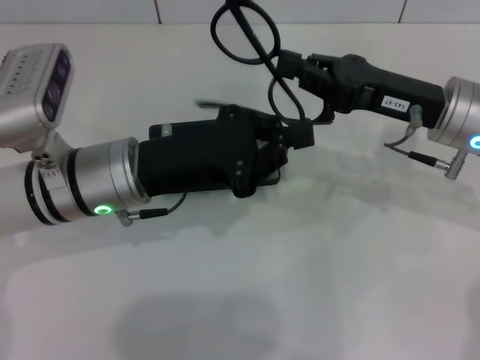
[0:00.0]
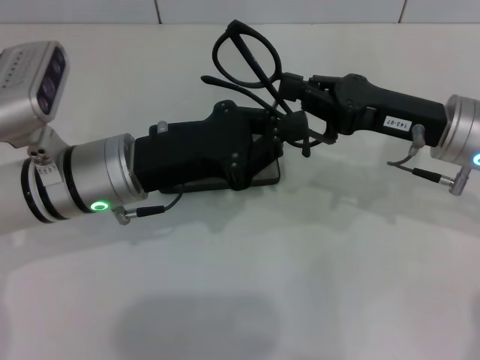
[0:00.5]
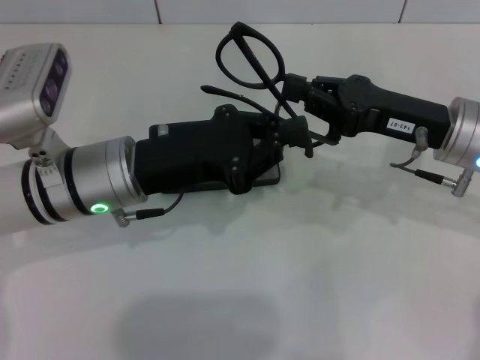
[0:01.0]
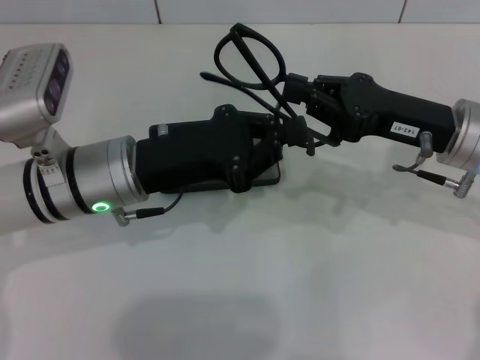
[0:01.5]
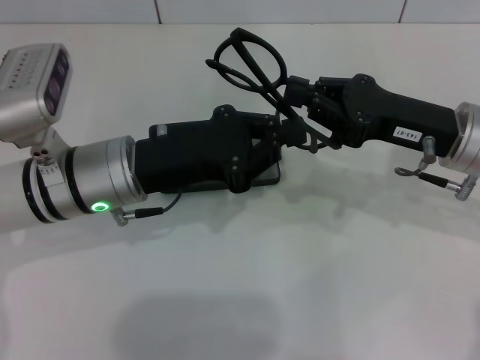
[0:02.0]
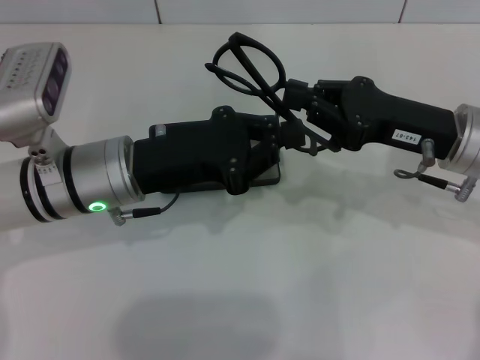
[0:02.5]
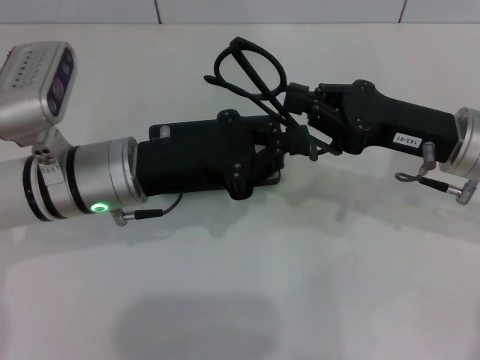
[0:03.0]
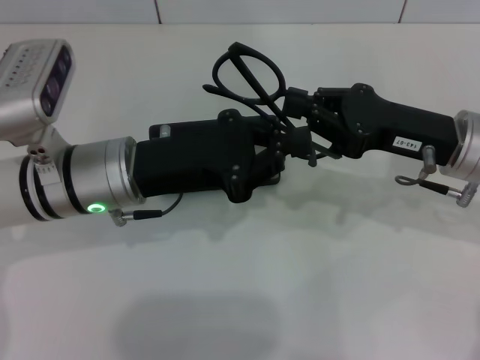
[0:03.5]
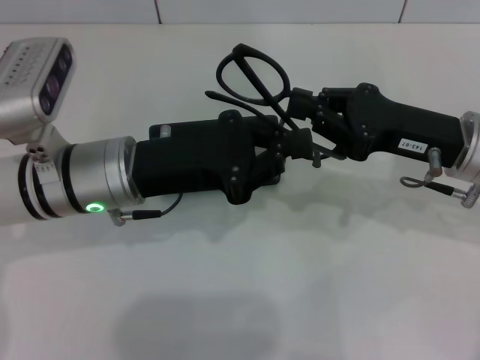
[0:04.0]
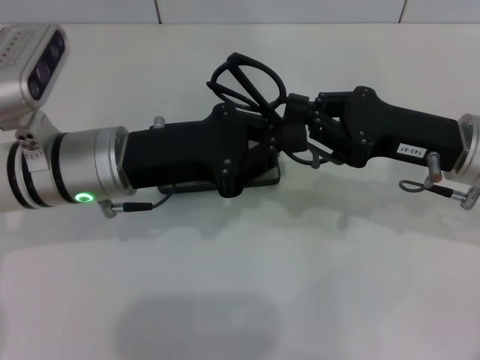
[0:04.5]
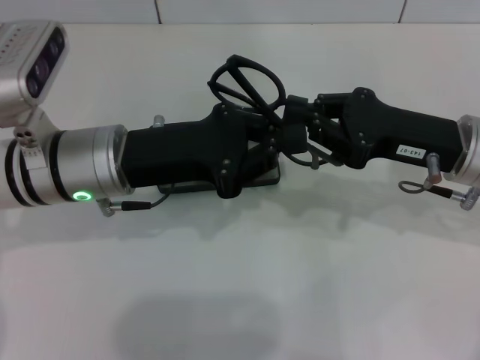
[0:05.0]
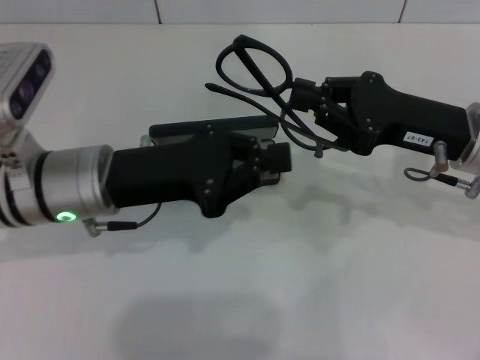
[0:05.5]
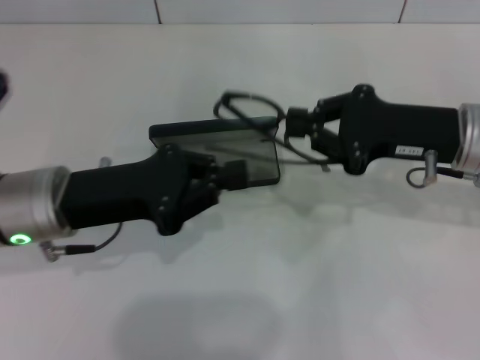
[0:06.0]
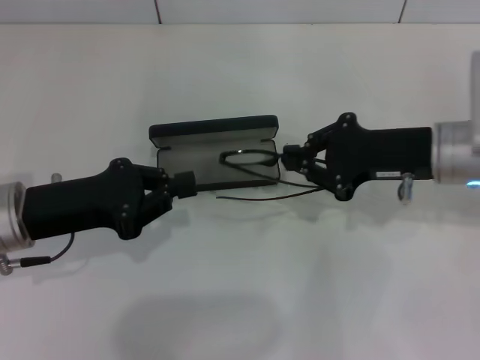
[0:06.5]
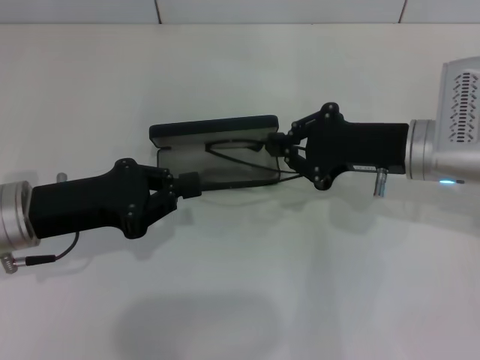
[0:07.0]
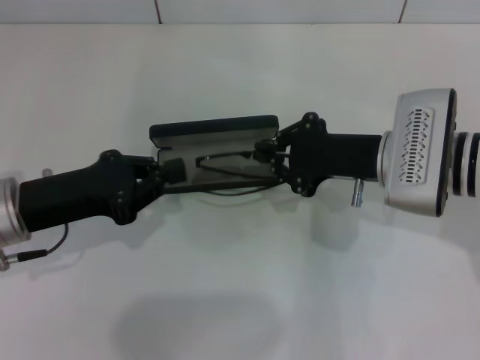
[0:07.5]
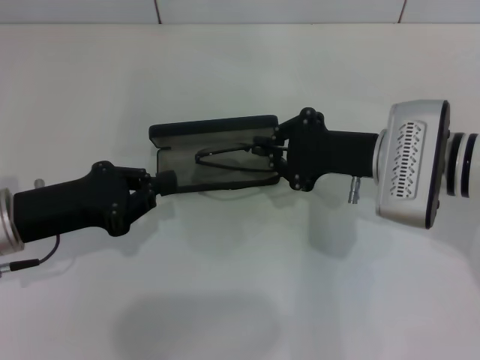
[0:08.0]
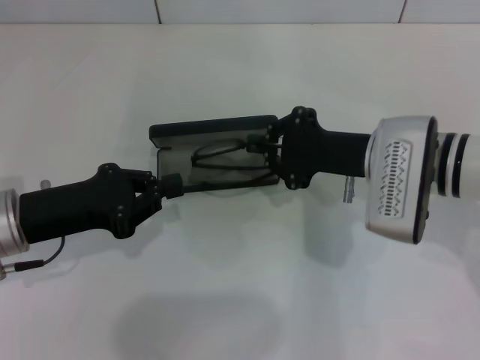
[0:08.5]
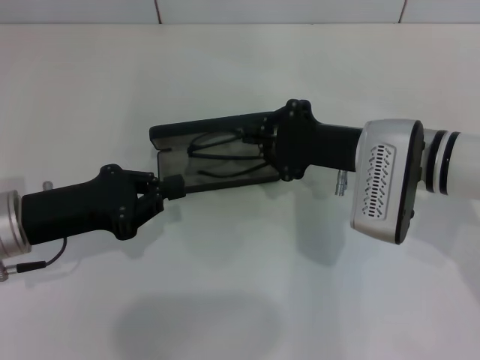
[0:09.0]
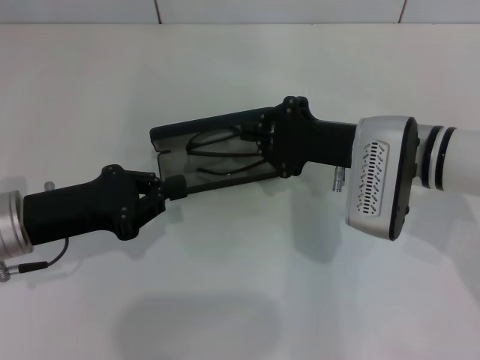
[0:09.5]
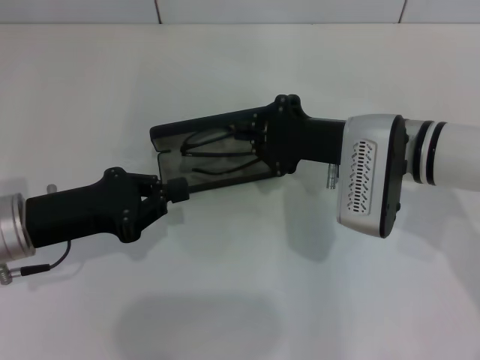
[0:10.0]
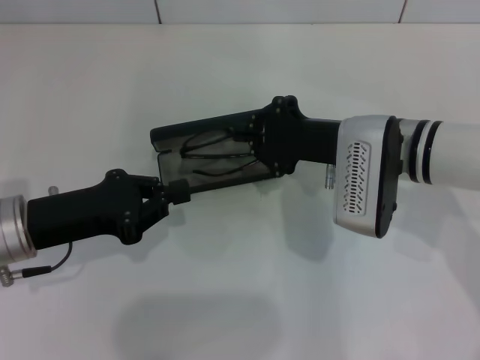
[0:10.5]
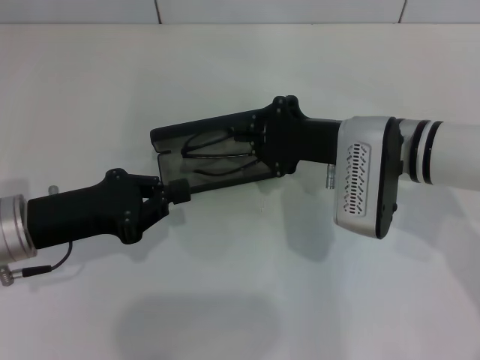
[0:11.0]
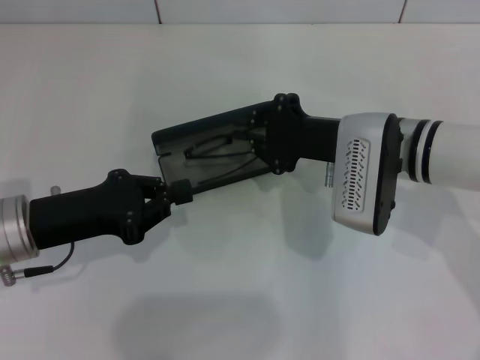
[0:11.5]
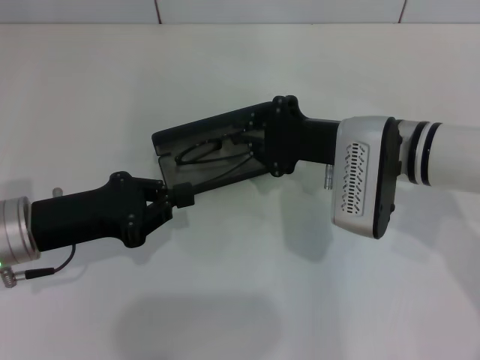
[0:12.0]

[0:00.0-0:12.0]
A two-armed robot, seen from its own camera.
Step, 0:00.0 to 0:05.5: Fold the frame with your left hand.
0:00.0 to 0:02.0: The grippers stay close to where they were, moving slightly.
0:02.0 to 0:04.0: The two grippers keep their place.
0:04.0 to 0:06.0: The left gripper moves to the left, some 5 cm.
0:06.0 to 0:08.0: Both grippers travel together to the left, about 5 cm.
0:08.0 to 0:10.0: The grippers stay close to where they were, moving slightly.
0:10.0 to 0:12.0: Both grippers stay put.

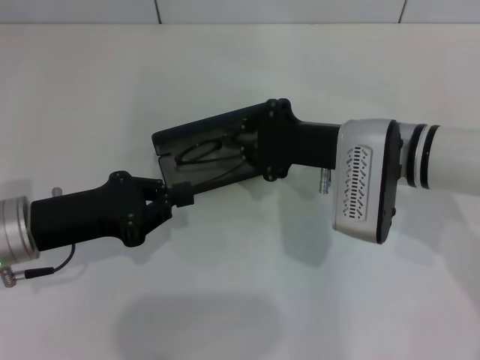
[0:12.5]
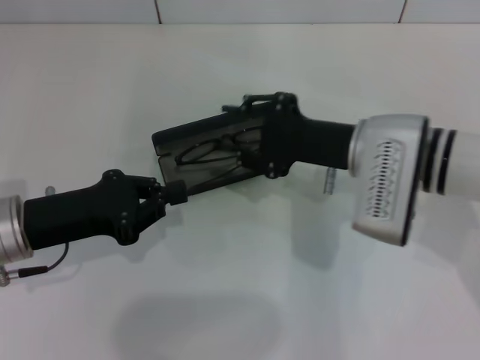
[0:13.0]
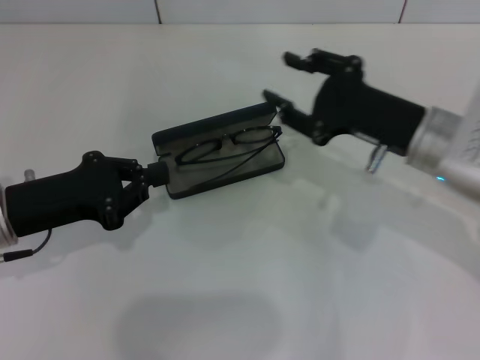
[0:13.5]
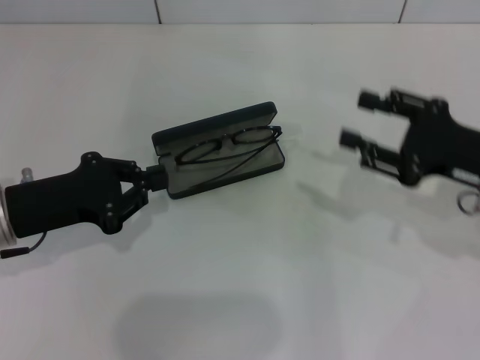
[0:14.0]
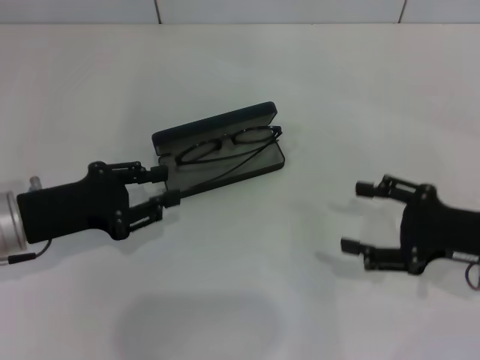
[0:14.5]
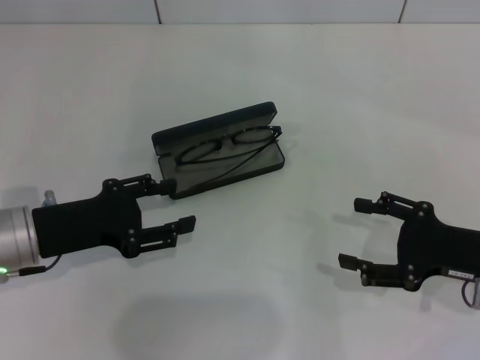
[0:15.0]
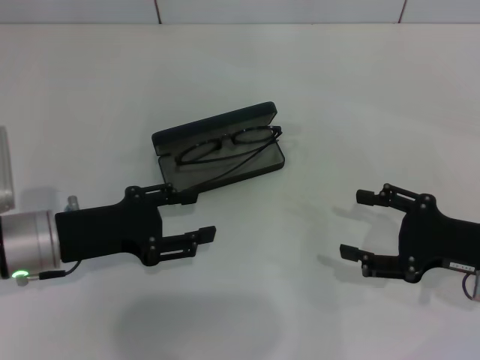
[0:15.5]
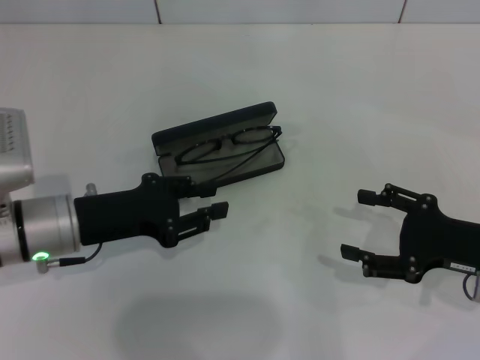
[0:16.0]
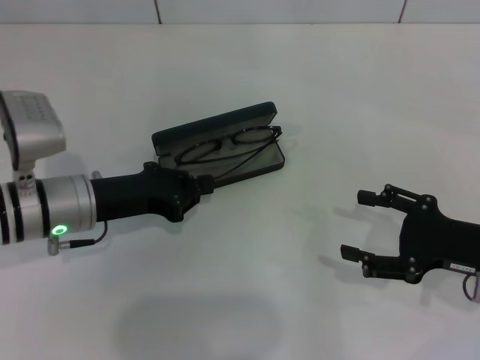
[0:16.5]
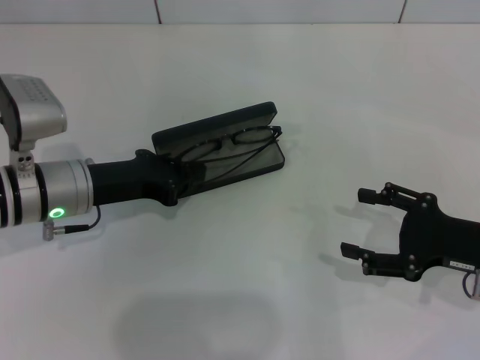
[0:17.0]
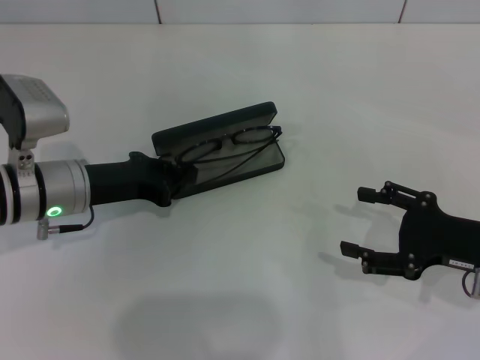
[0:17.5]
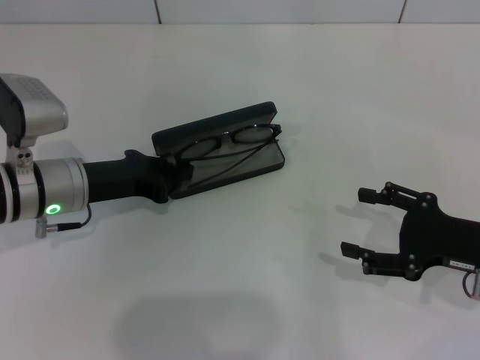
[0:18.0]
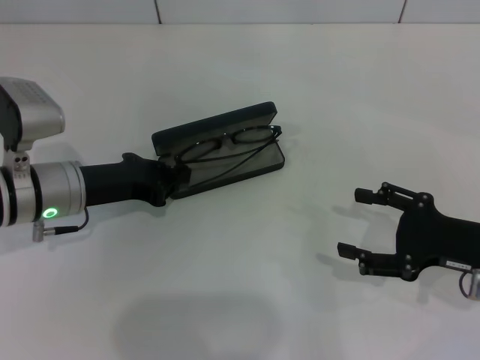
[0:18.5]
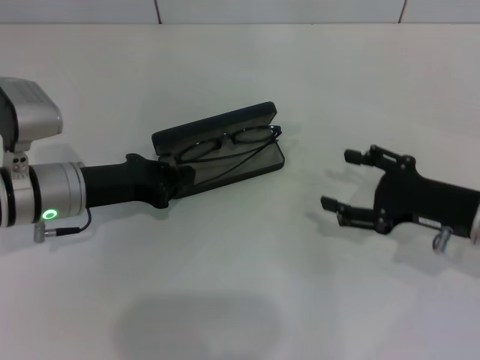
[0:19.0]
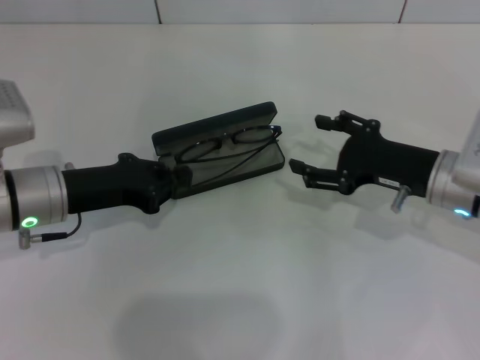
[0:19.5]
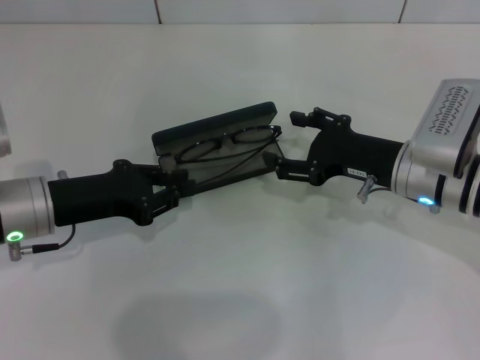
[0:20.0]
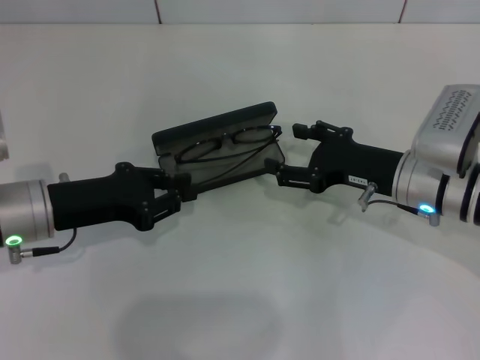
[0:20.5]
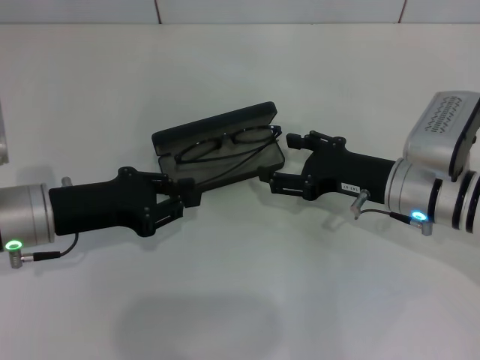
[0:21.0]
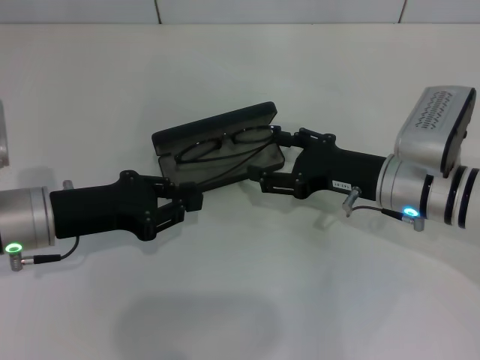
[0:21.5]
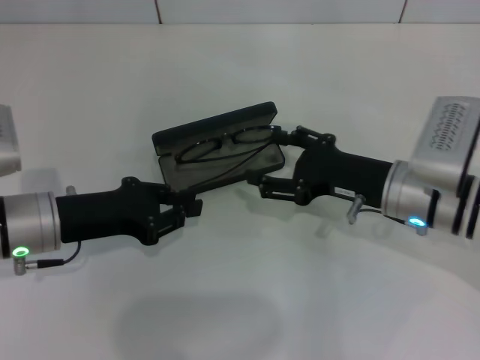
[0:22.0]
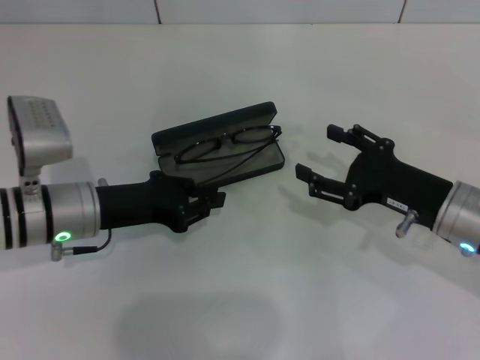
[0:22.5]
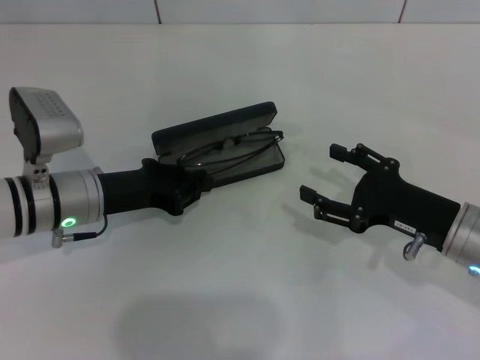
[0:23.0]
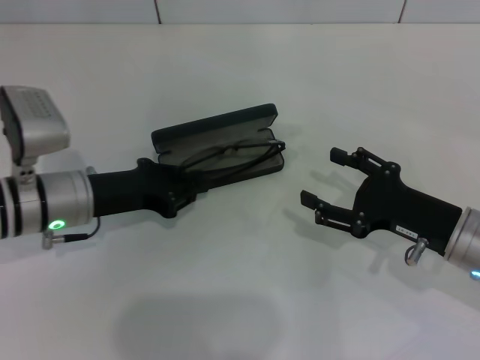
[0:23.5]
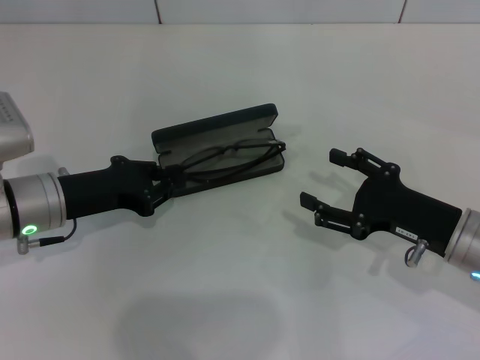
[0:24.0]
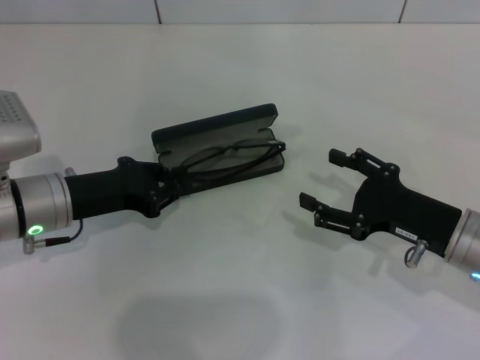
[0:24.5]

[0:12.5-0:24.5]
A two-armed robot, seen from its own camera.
Step, 0:12.5 to 0:23.5: Put the glasses into the case with your right hand.
0:12.5 to 0:14.5: The right gripper travels to the right and backward by roughly 15 cm, and opens.
0:14.5 to 0:16.5: The left gripper heads to the right, covering about 5 cm, and opens, then closes again.
0:16.5 to 0:18.5: The grippers make only small movements.
0:18.5 to 0:20.5: The right gripper heads to the left and forward, covering roughly 10 cm.
0:20.5 to 0:22.5: The right gripper changes place by about 5 cm.
0:22.5 to 0:24.5: There are only small adjustments of the grippers.

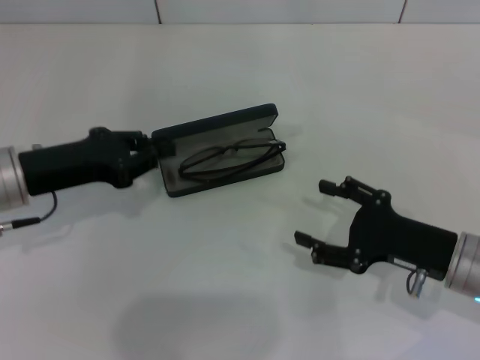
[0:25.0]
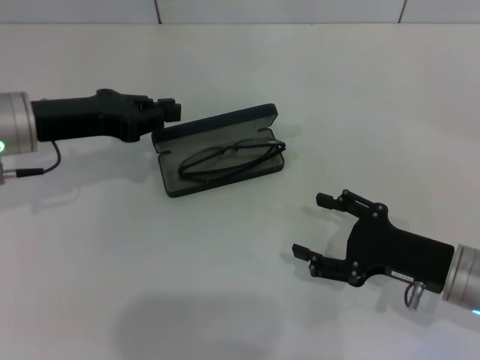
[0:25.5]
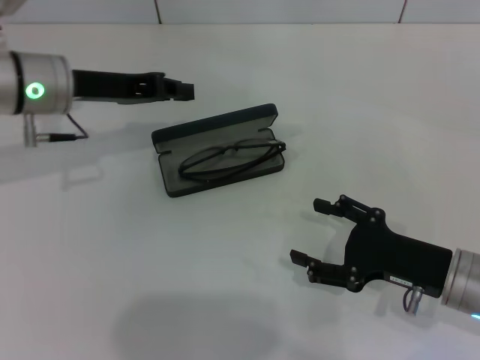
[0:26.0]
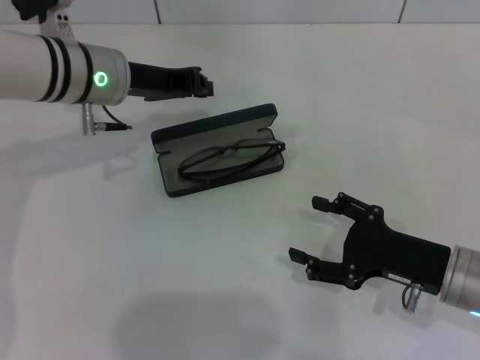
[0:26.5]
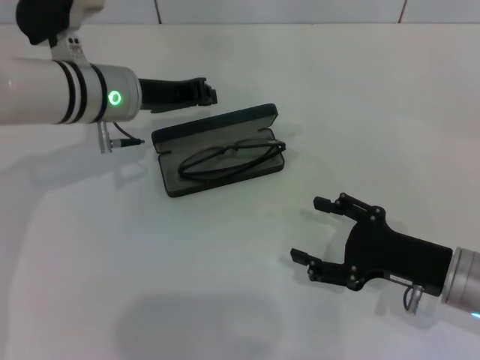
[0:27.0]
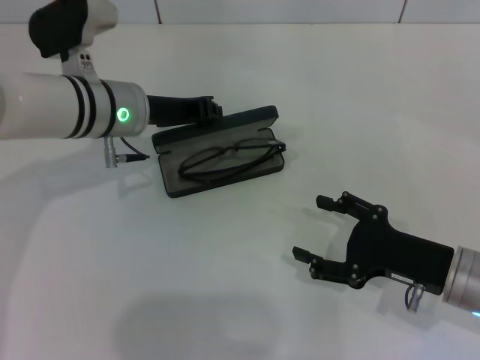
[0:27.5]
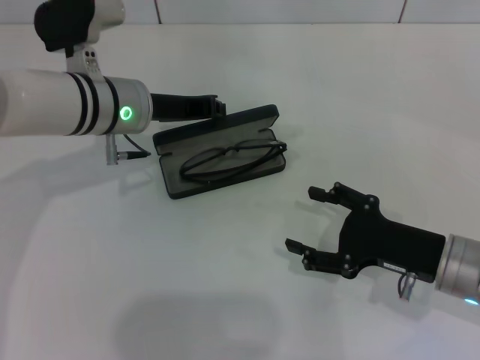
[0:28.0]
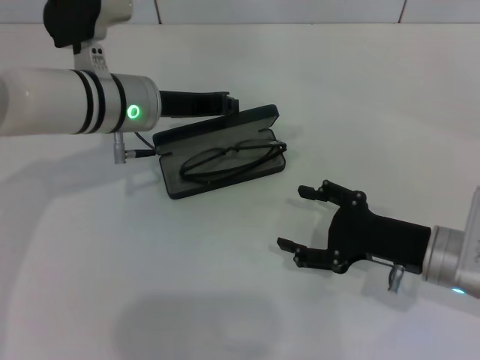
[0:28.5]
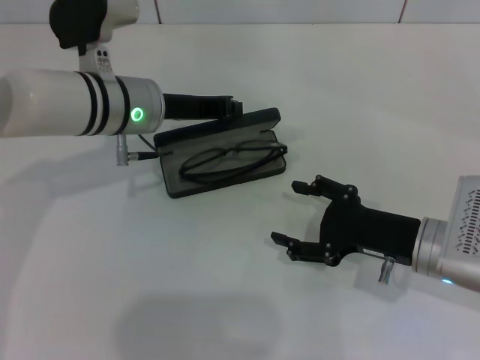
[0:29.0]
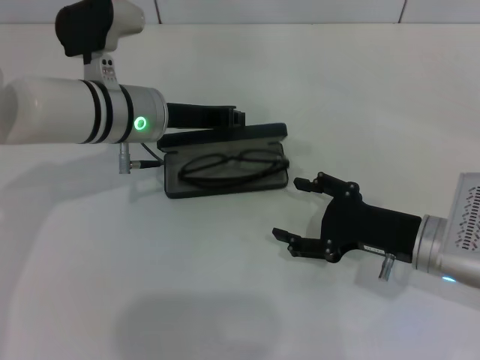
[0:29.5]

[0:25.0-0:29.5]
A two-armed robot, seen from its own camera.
0:25.0 to 0:27.0: The left gripper heads forward and to the right, covering some 15 cm.
